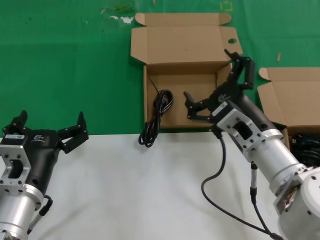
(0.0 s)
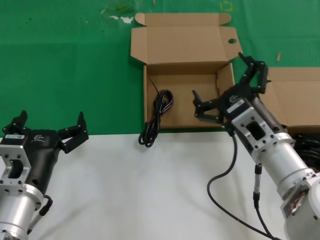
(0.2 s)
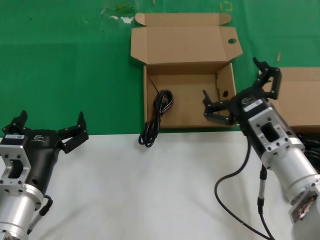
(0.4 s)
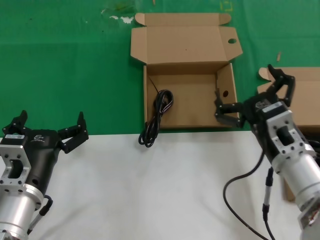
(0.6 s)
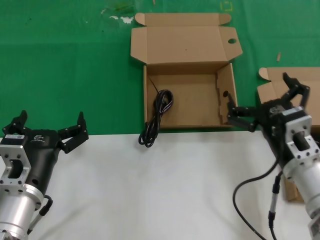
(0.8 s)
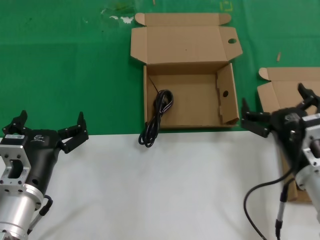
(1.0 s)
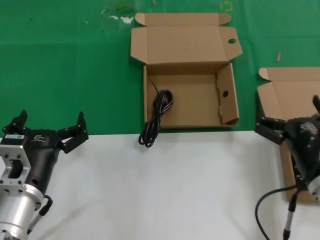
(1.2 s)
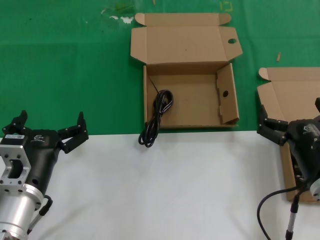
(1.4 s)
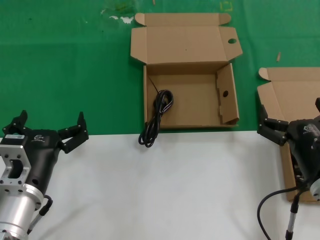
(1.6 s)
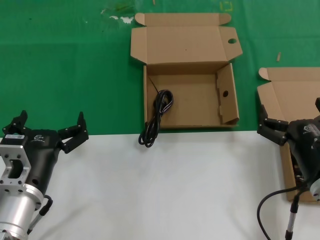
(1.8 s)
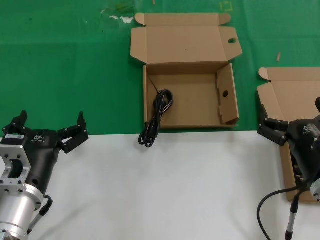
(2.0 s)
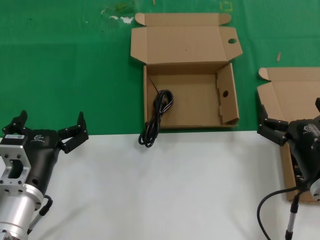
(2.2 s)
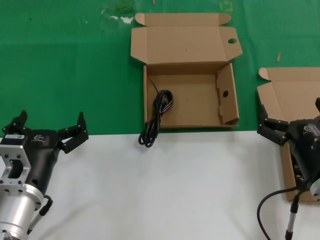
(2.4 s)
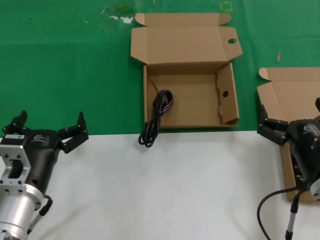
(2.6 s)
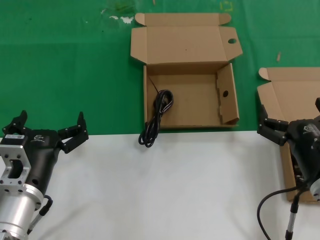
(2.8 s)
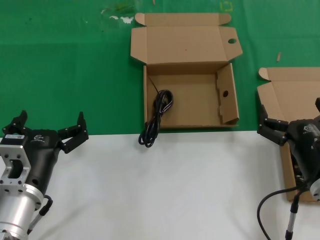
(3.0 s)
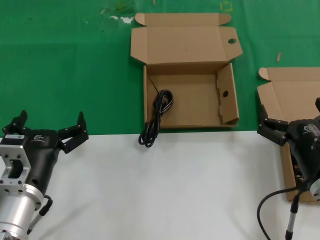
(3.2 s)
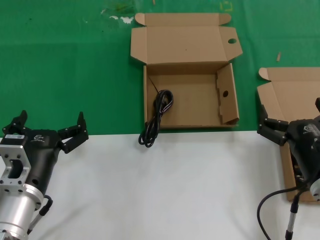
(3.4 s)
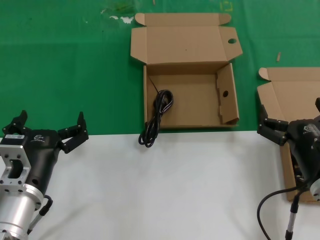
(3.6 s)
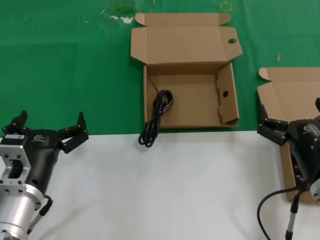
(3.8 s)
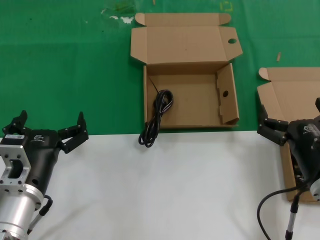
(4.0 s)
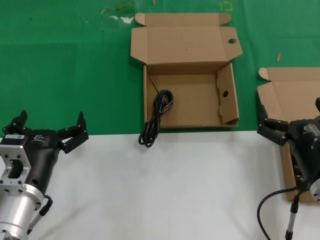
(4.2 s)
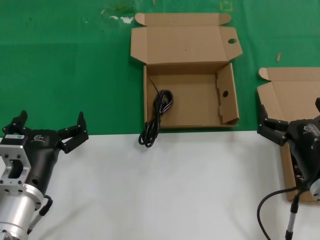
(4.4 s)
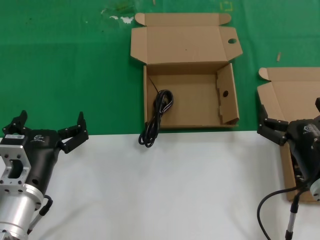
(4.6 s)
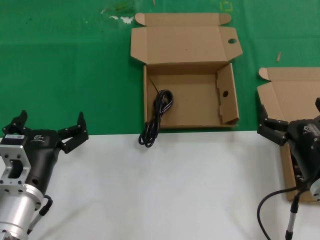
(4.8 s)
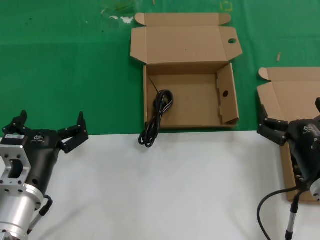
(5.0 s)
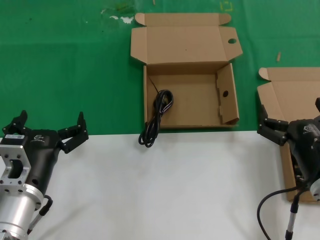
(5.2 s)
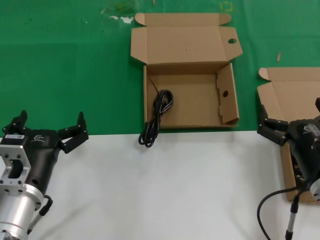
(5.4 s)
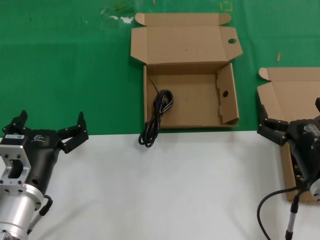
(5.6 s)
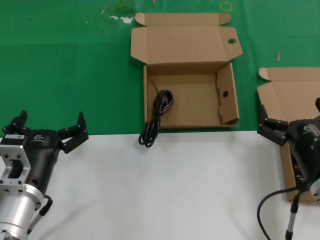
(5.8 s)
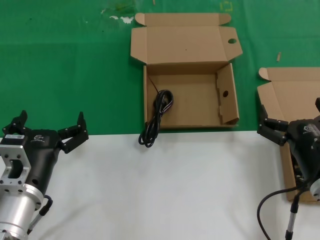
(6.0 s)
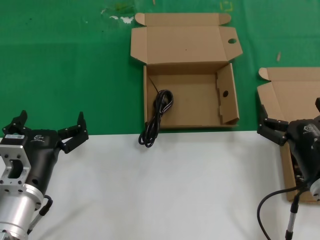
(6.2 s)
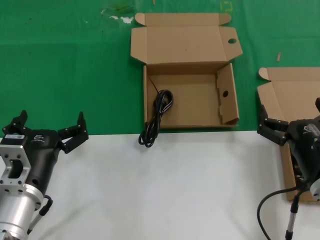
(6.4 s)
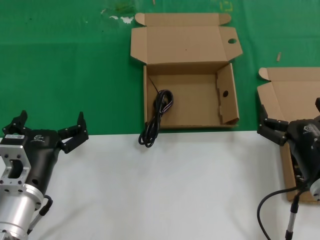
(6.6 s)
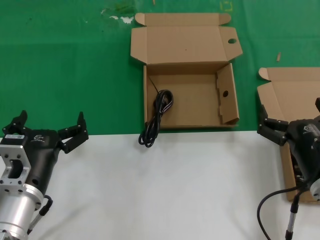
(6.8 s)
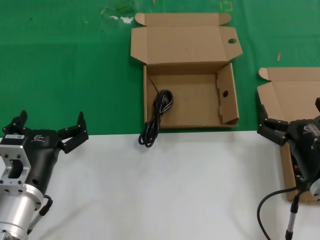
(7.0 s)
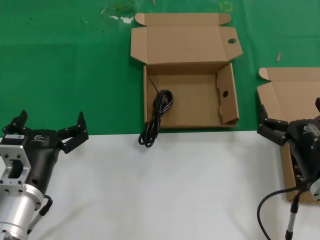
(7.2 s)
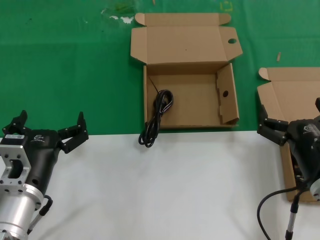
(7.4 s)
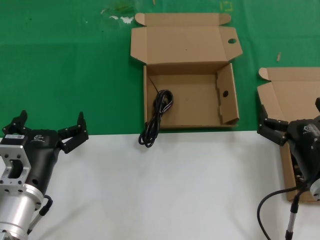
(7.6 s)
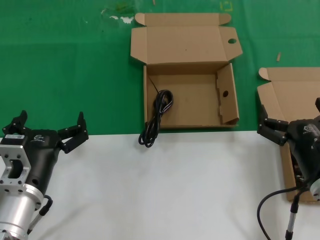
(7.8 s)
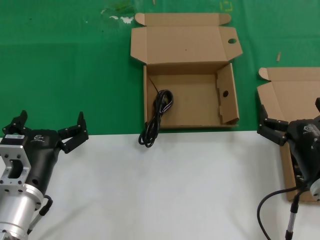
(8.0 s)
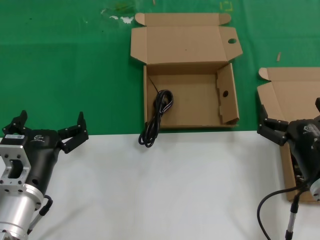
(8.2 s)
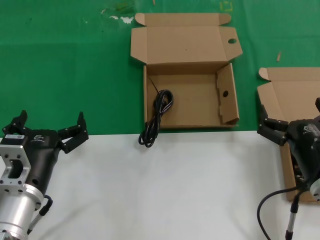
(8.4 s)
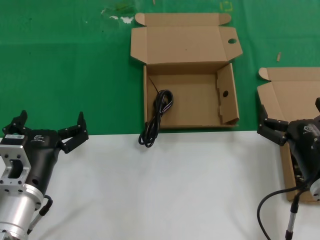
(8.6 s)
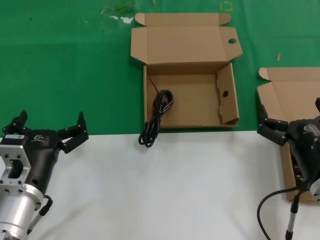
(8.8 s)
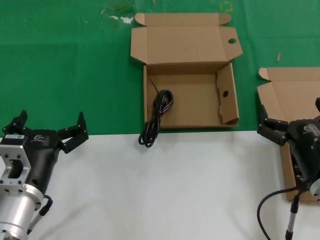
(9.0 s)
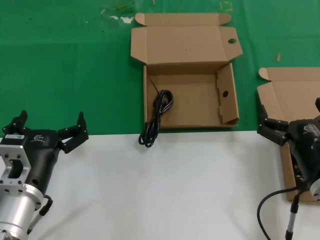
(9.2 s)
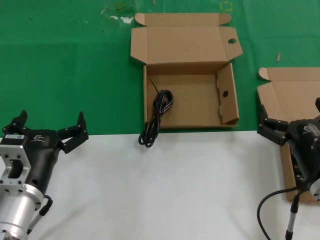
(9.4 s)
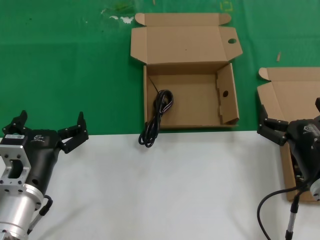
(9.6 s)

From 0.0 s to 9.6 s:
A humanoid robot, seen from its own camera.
Task of the whole recording: take the parts from the box containing them and put them into an empty box.
From 0.0 s to 1.6 s: The right hand moves to the right and backward, approximately 10 cm.
From 1.6 s to 9.6 s: Neither hand changes place.

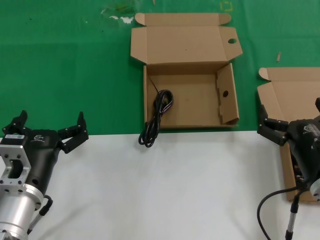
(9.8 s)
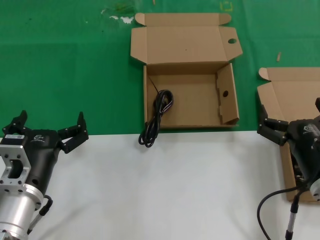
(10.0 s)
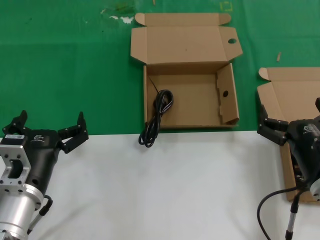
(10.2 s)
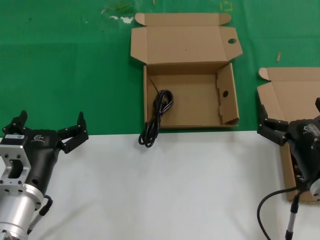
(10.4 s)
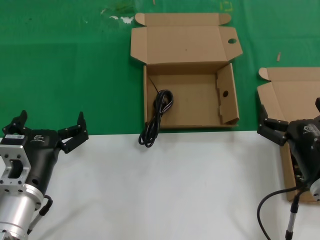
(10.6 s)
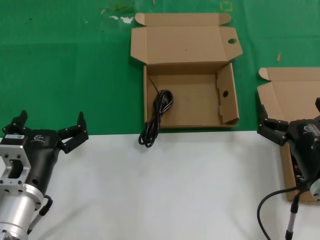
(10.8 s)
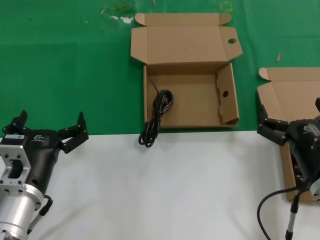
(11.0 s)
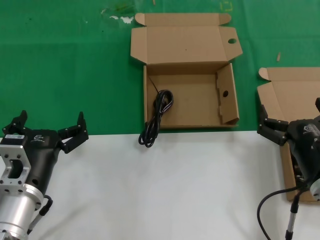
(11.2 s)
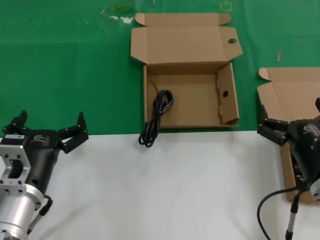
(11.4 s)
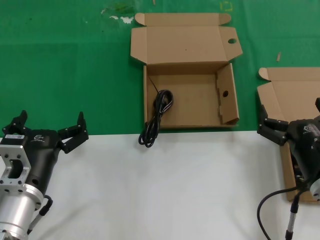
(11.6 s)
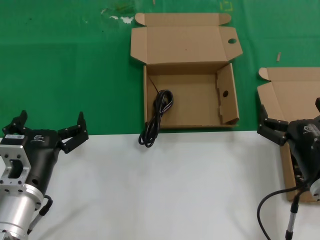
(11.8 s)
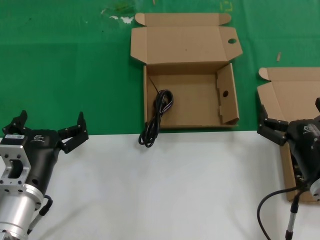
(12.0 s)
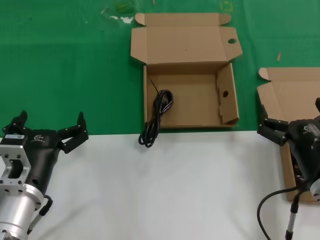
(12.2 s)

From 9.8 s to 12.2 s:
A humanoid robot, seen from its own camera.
Task of the whole recording: take the parts from the box containing them and put them into an empty box.
From 9.8 s to 12.2 s: Both hands stay put.

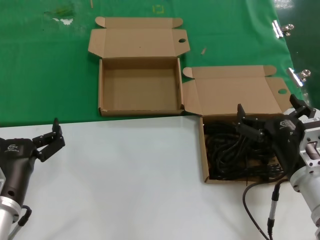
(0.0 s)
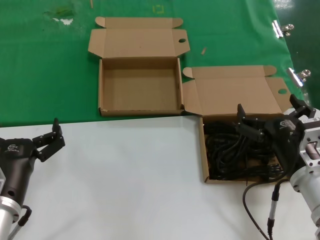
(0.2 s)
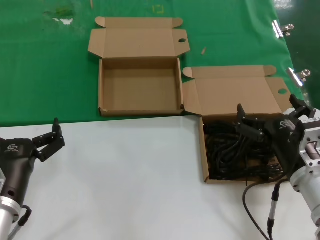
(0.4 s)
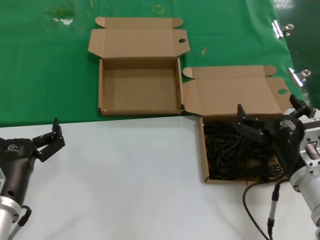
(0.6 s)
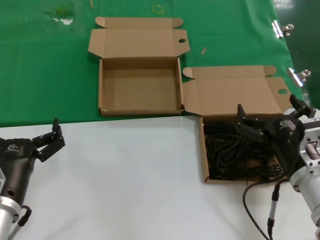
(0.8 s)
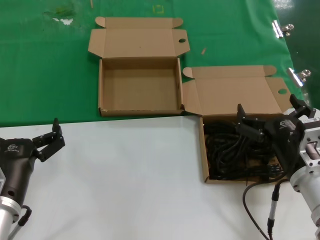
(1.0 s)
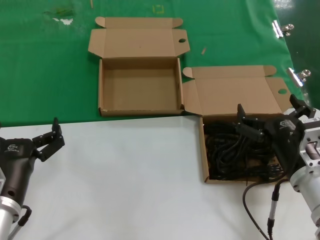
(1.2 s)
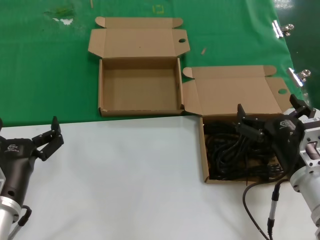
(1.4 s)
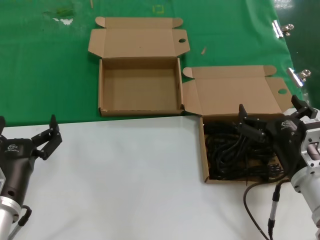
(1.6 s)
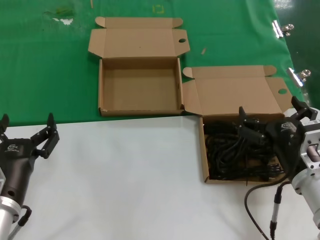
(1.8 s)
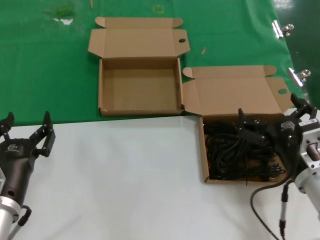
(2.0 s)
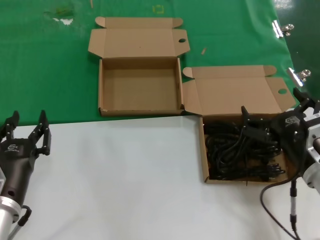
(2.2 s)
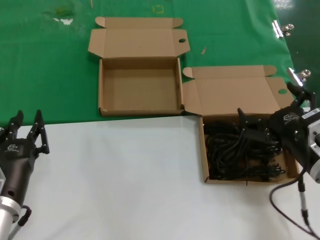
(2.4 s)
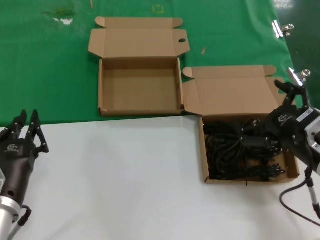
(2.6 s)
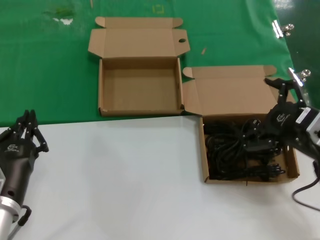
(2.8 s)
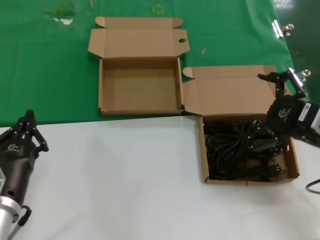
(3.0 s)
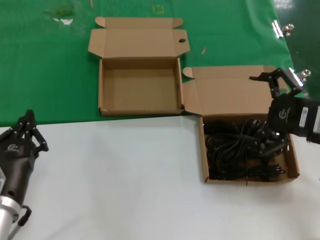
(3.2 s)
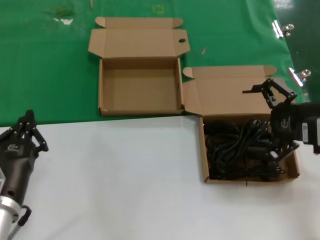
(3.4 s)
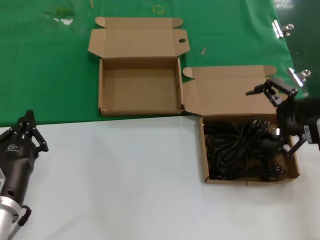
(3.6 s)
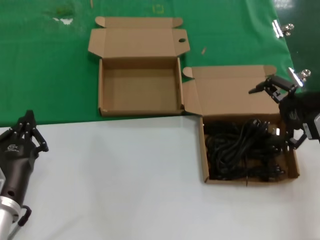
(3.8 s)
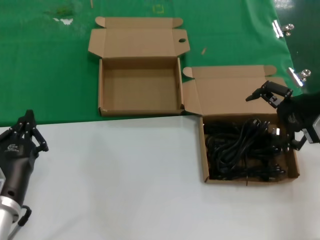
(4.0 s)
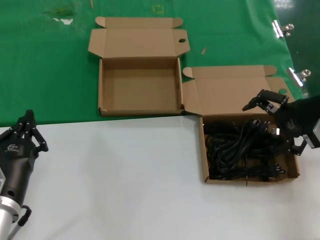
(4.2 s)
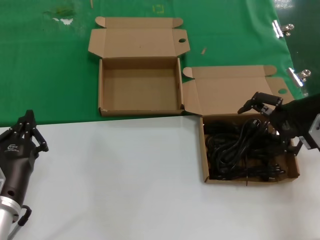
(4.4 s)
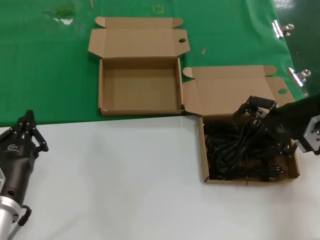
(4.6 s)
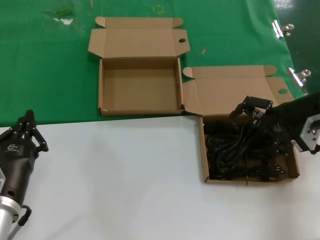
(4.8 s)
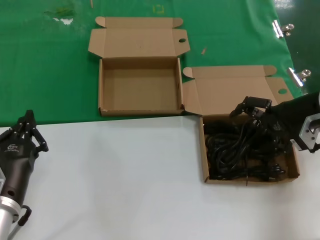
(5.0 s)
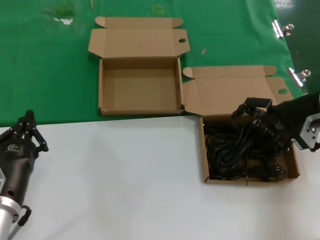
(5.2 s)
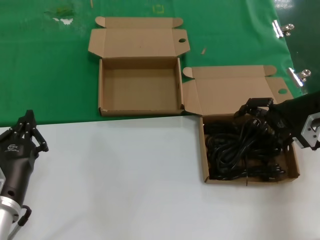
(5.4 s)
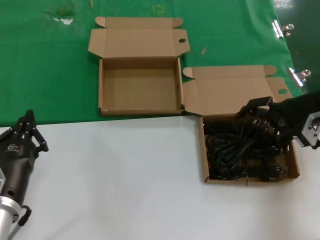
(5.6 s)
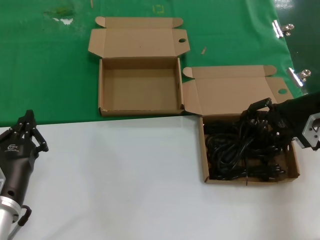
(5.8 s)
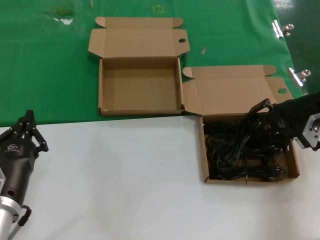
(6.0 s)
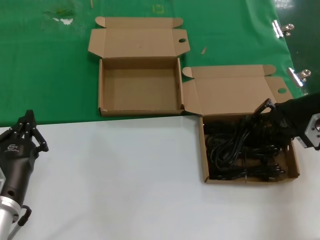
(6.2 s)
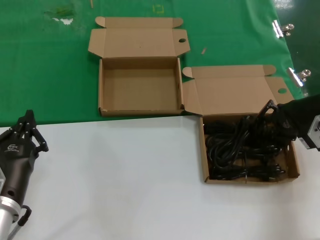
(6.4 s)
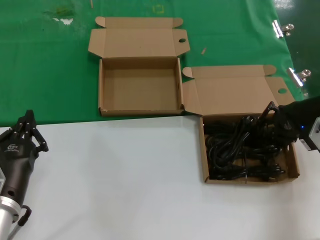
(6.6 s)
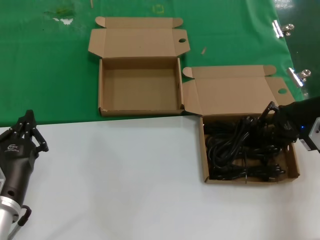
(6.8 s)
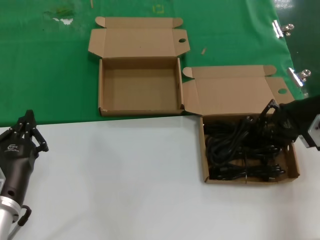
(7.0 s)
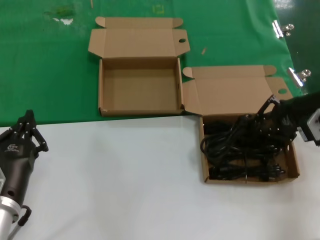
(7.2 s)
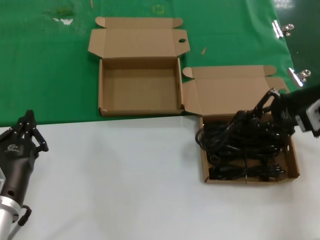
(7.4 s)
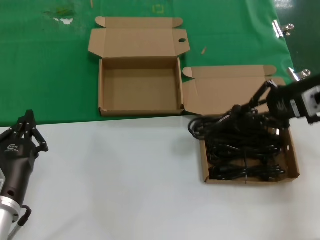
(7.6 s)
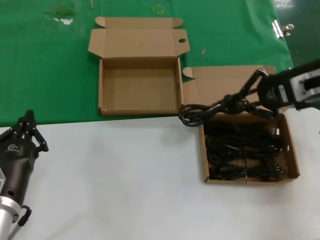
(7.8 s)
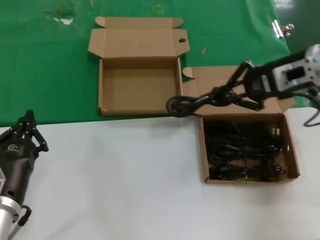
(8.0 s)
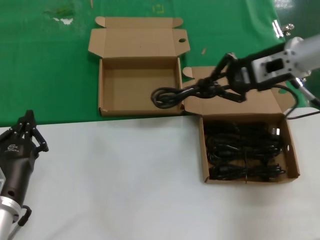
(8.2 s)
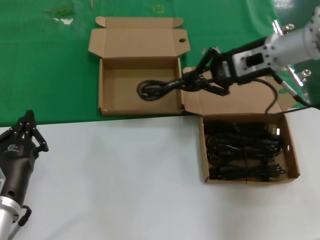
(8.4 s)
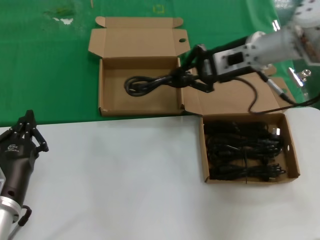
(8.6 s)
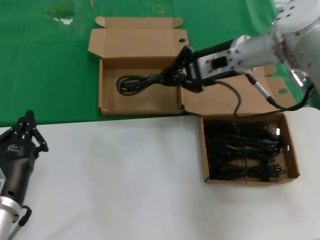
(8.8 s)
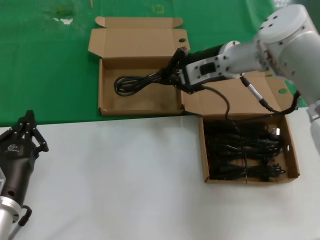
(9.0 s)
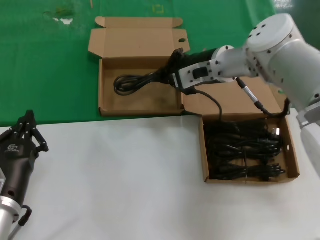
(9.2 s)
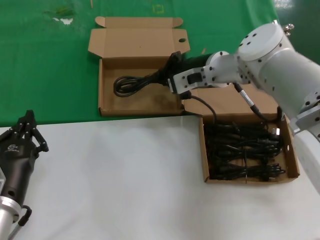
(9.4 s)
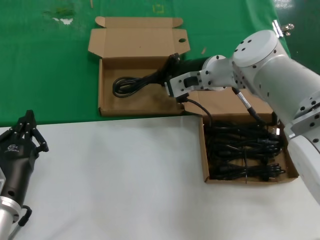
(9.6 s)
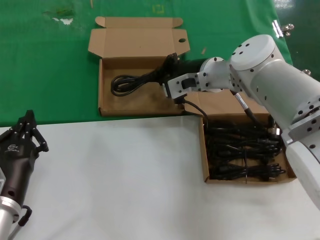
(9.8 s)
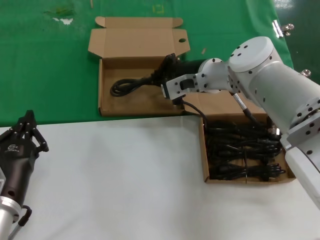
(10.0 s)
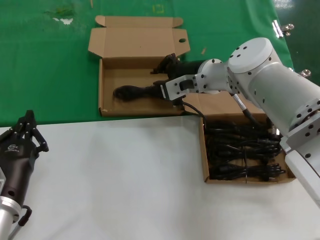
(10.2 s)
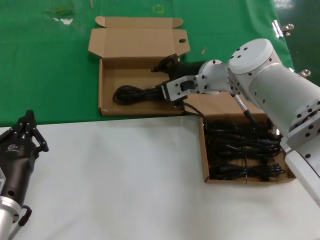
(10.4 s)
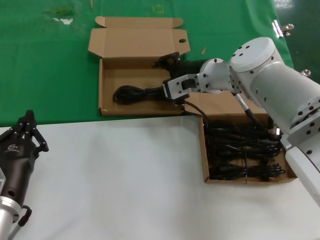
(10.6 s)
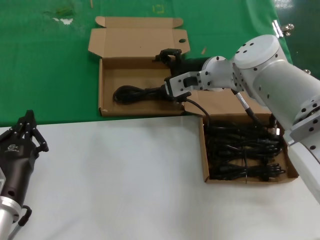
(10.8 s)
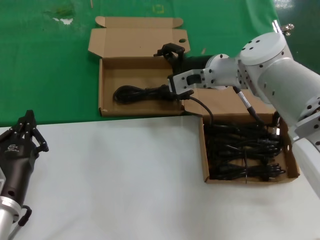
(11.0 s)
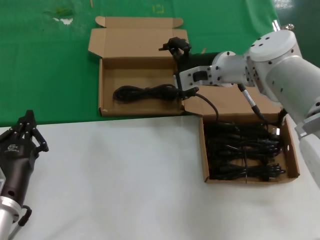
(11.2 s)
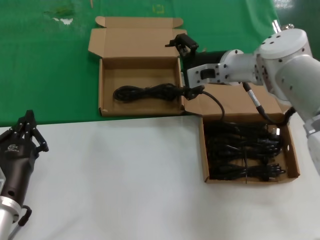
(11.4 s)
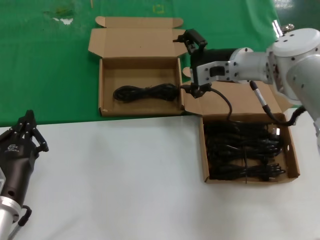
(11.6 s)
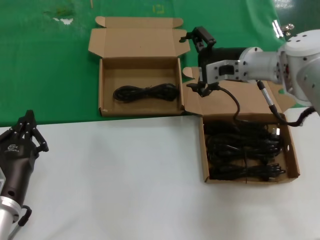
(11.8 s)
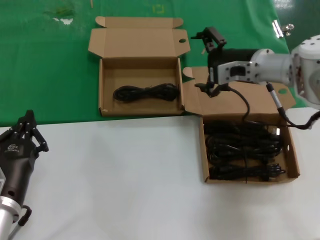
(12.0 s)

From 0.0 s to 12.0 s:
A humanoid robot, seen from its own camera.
Task of the whole recording: take the parts from the box containing them and put them into an empty box.
Step, from 0.0 s to 6.0 s: Grasp the data cable.
Step, from 6.2 s to 10.2 s: Place the data cable in the another box.
From 0.0 s to 1.6 s: The two hands keep their place.
From 1.6 s to 3.0 s: The right hand travels upward and to the right by about 15 cm.
From 3.0 s to 4.4 s: The right hand travels forward by roughly 10 cm.
From 4.4 s to 6.0 s: The hands make only small movements.
From 6.0 s to 7.6 s: The right hand is displaced upward by about 5 cm.
From 7.6 s to 9.0 s: The right hand moves to the left and forward, about 20 cm.
From 9.0 s to 10.4 s: The right hand moves downward, roughly 5 cm.
From 10.4 s to 12.0 s: The right hand travels to the right by roughly 10 cm.
